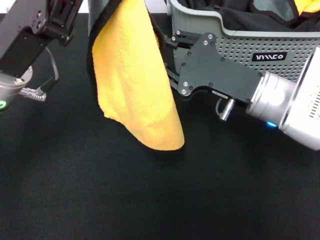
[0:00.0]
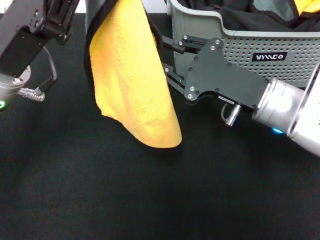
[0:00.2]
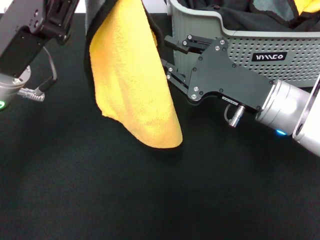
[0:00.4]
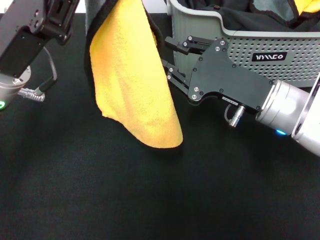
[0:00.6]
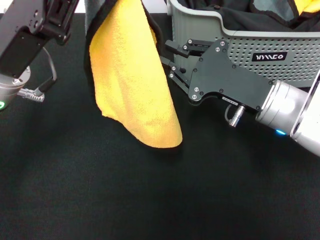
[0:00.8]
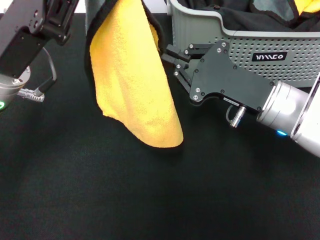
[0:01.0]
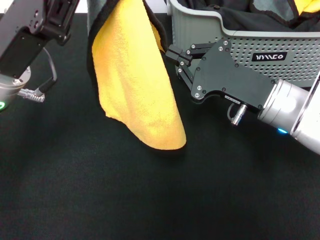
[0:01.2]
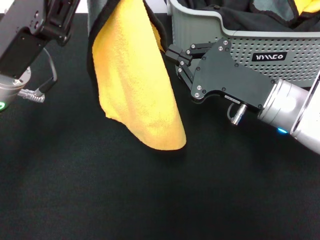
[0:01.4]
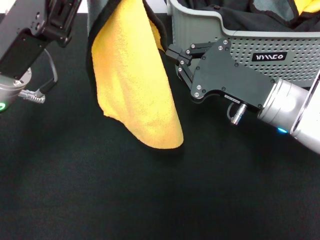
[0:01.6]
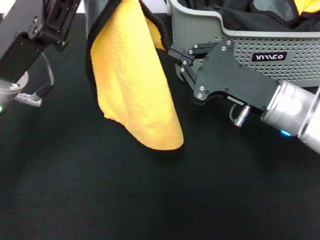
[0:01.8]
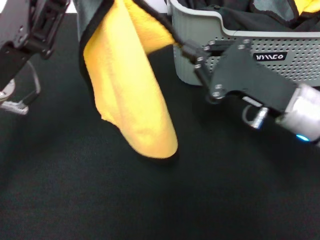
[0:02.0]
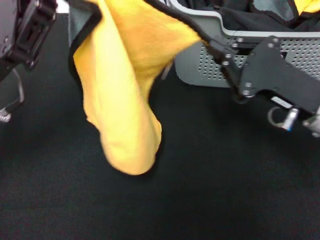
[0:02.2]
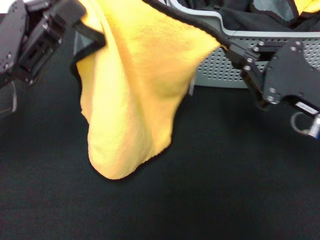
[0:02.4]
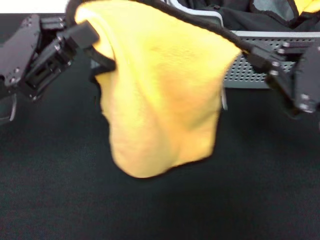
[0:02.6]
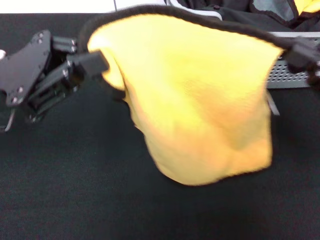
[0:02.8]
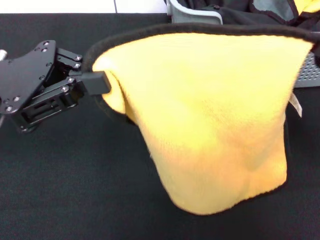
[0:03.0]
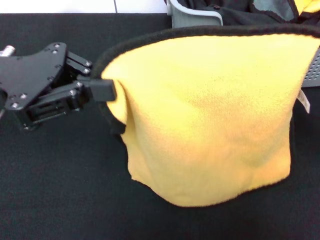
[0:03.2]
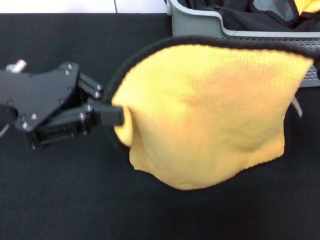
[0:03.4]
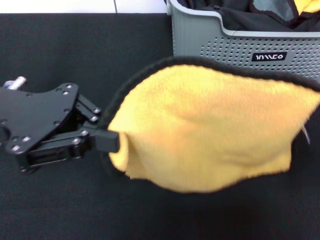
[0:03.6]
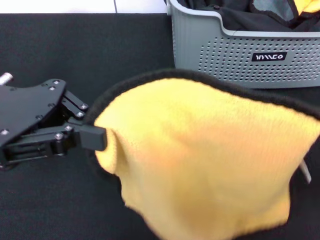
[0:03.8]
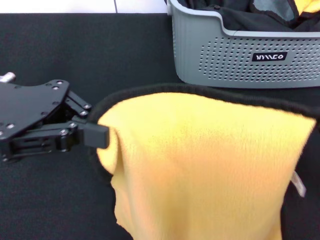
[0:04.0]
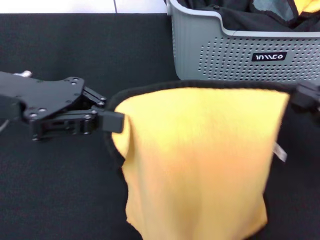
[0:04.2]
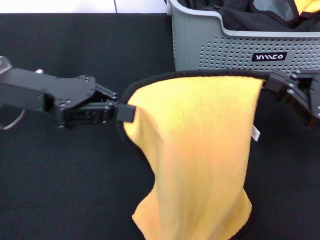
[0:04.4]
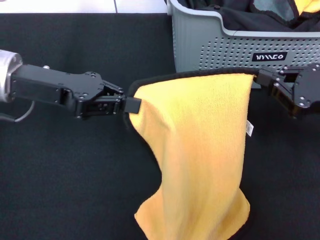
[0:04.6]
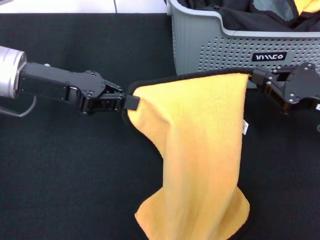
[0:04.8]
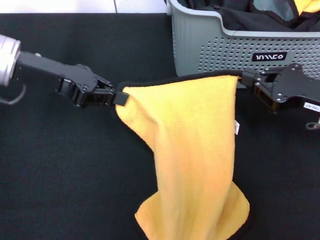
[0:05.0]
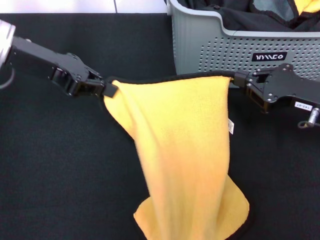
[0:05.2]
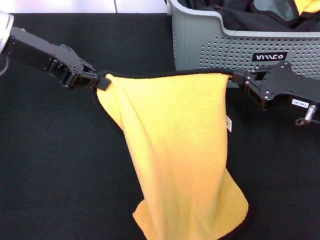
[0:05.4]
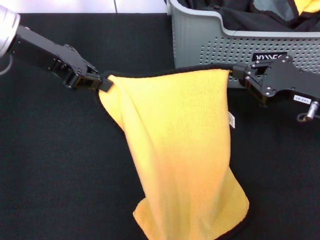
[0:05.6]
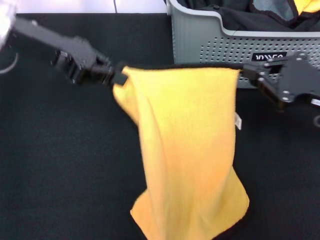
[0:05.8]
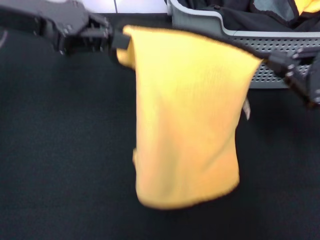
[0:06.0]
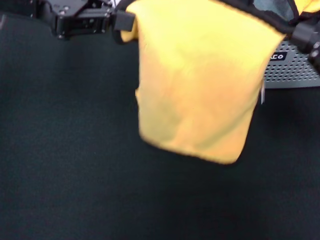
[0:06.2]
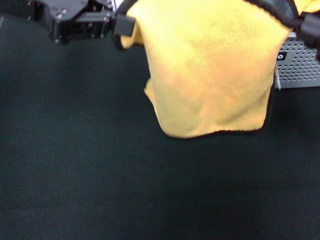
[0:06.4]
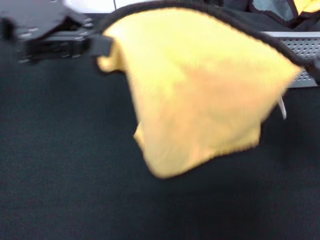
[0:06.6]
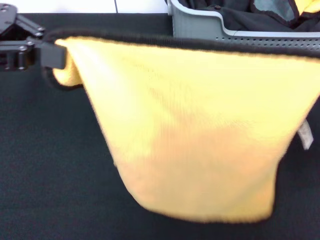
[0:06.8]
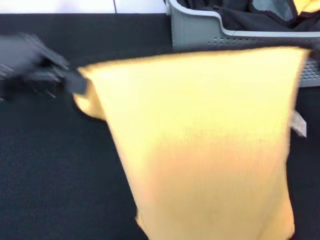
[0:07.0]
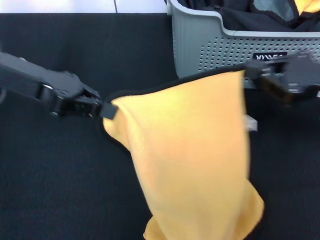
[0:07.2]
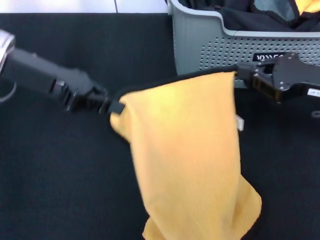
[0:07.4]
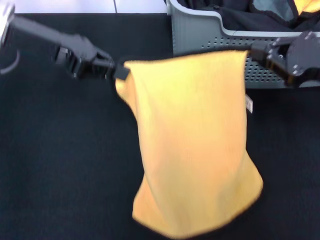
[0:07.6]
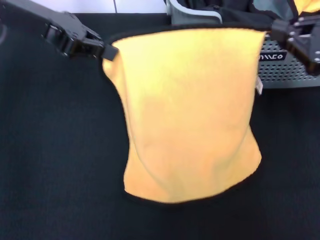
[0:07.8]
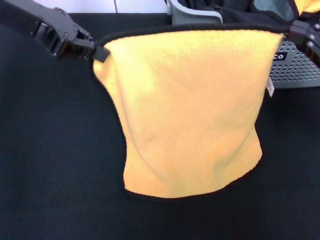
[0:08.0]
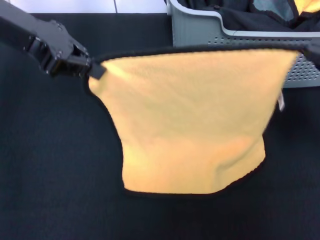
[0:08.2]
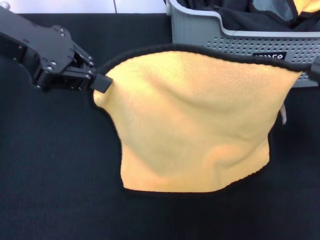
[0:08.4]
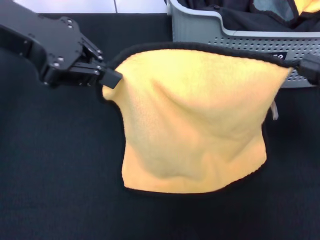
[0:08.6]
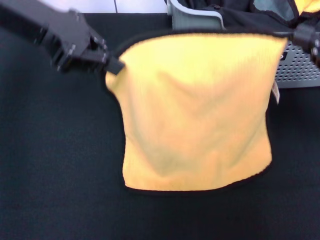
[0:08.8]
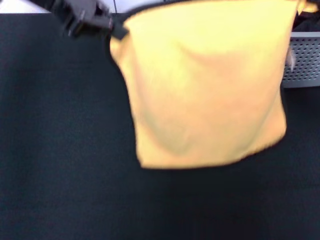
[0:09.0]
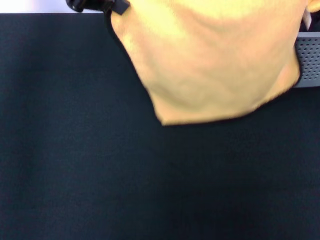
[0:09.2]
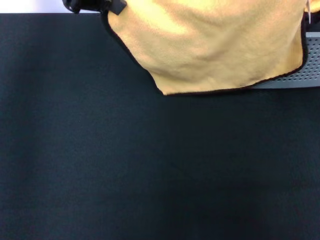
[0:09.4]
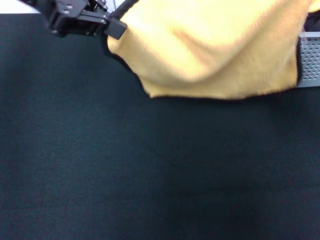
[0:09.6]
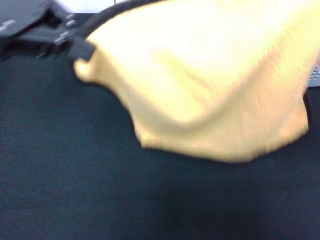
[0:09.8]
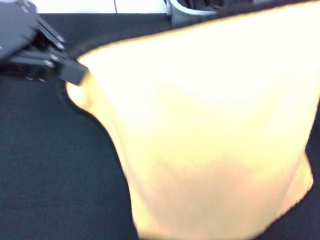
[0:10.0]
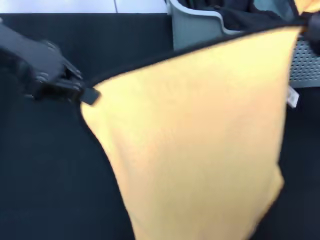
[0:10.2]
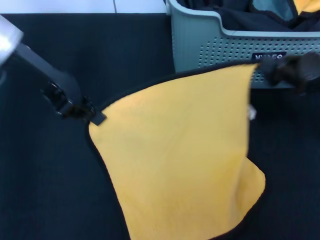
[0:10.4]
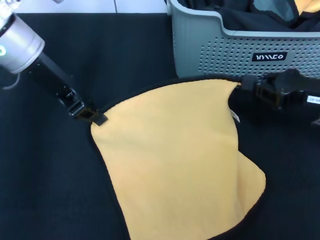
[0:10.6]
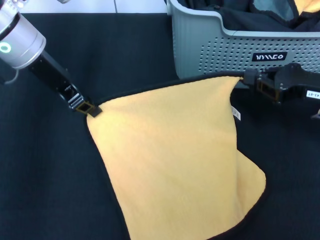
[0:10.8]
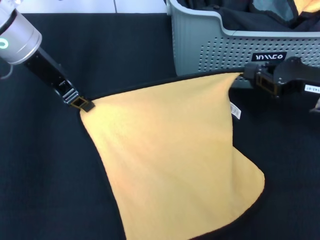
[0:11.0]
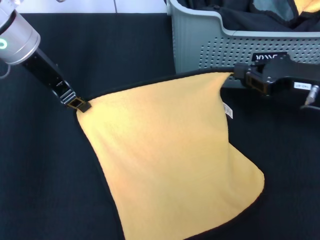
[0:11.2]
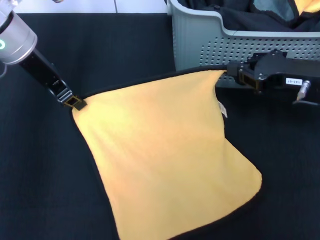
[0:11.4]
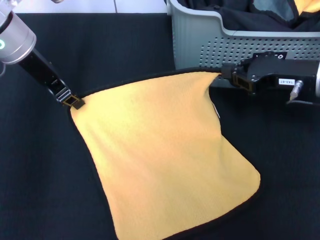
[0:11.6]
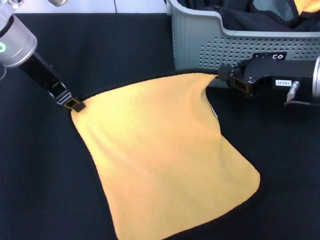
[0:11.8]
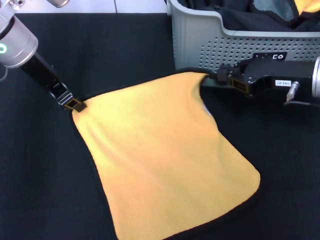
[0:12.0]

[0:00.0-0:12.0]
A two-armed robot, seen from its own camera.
Task of the whole recording: pick up the towel from the storage box and lay it flat on the black tablecloth.
0:00.0 to 0:01.6: The right gripper closes its fingers.
0:01.6 to 0:03.0: The right gripper travels to the right, backward and upward by some 20 cm. Meanwhile the left gripper heads to the left, covering about 5 cm.
0:03.0 to 0:04.4: The right gripper moves downward, about 5 cm, and goes backward and returns, about 5 cm each way.
0:04.4 to 0:06.0: The left gripper is displaced upward by roughly 10 cm.
0:06.0 to 0:07.6: The right gripper heads forward, covering roughly 5 cm.
0:07.6 to 0:09.0: The right gripper heads upward and backward, covering some 10 cm. Meanwhile the left gripper travels upward by approximately 10 cm.
0:09.0 to 0:10.4: The left gripper travels downward by some 10 cm. Meanwhile the right gripper heads downward and forward, covering some 10 cm.
0:10.4 to 0:12.0: The right gripper heads to the left, covering about 5 cm.

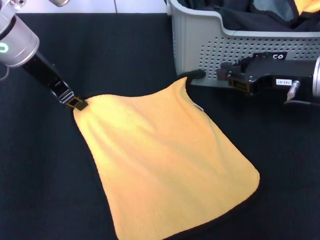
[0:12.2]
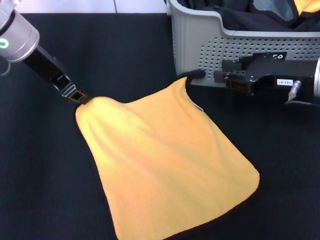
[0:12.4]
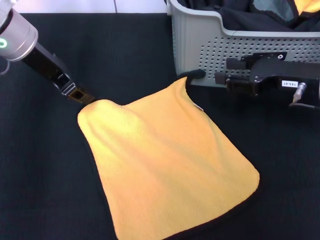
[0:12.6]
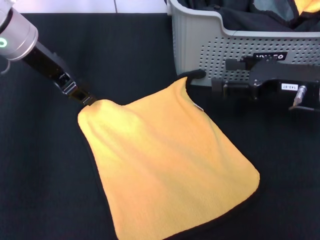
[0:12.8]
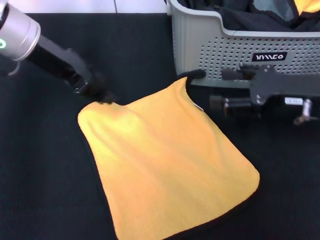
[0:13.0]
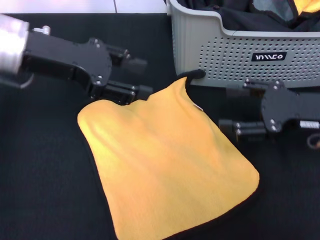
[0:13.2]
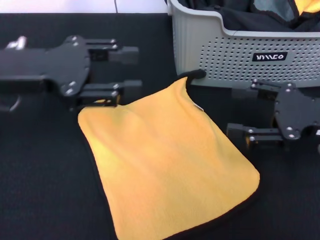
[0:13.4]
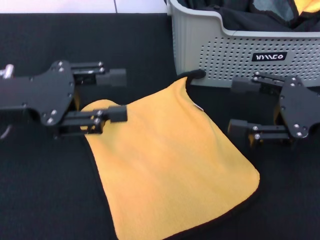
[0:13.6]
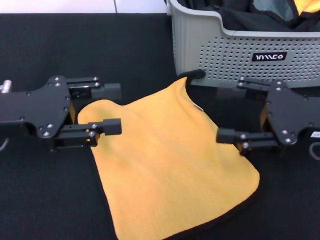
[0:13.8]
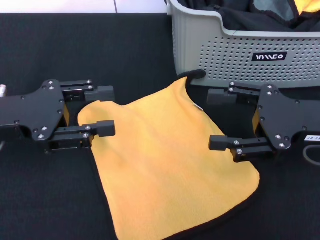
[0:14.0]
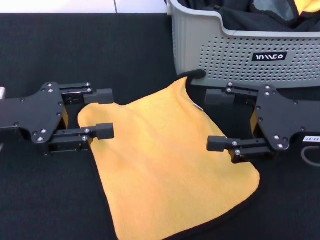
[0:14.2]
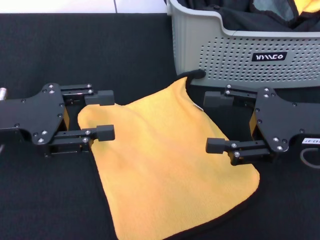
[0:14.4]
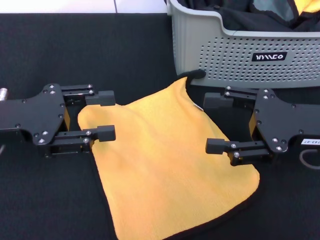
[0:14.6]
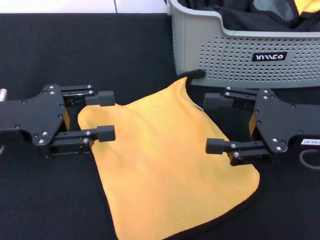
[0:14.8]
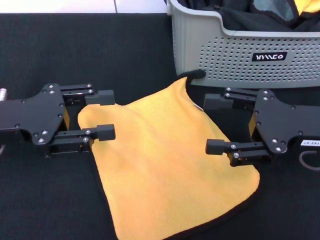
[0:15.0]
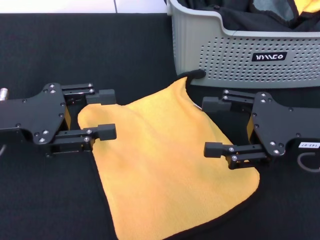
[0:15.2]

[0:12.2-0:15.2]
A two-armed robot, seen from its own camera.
Task of the whole recording: pick up the towel from the storage box and lay it flat on the black tablecloth.
0:12.2 to 0:13.8: The left gripper goes some 15 cm backward, and opens its fingers. The right gripper moves backward, about 10 cm, and opens its fingers.
0:13.8 to 0:15.2: The grippers make only small movements.
